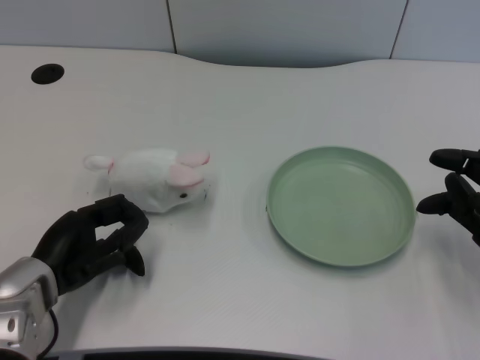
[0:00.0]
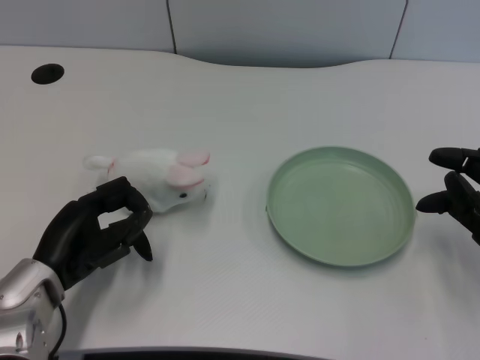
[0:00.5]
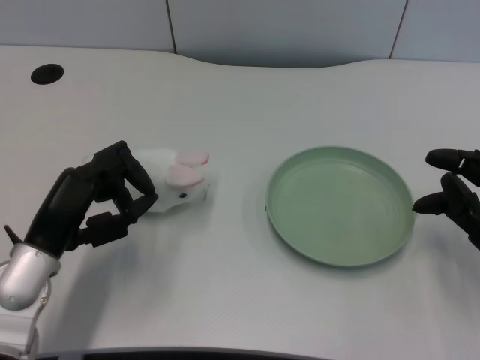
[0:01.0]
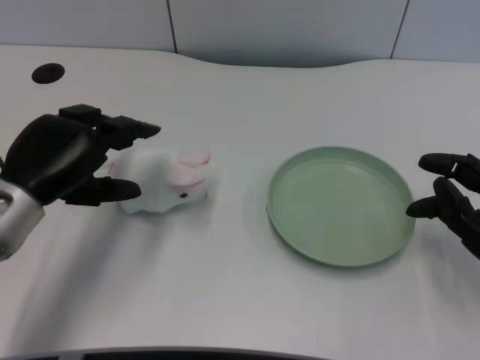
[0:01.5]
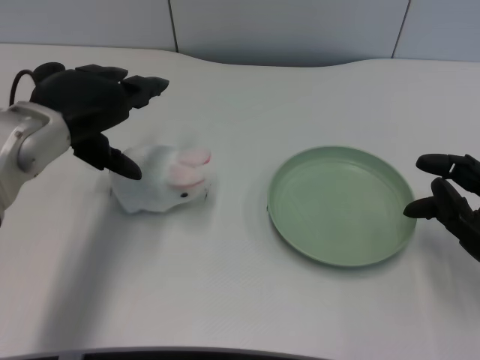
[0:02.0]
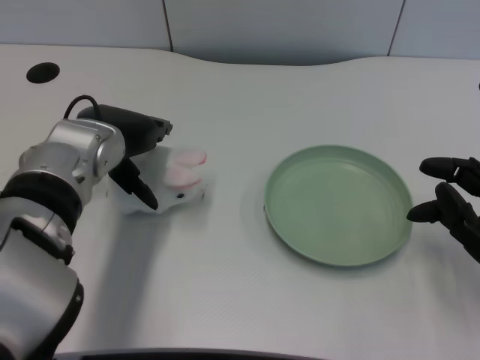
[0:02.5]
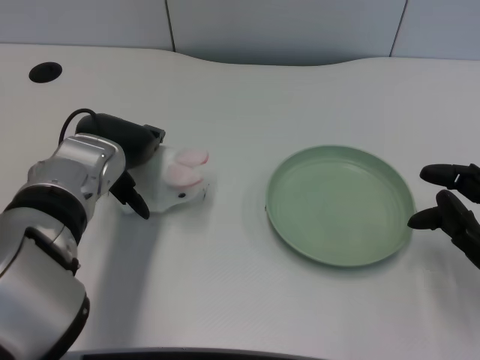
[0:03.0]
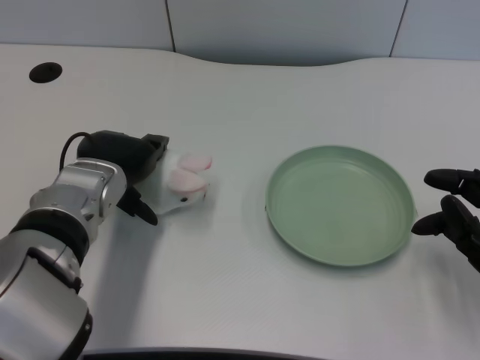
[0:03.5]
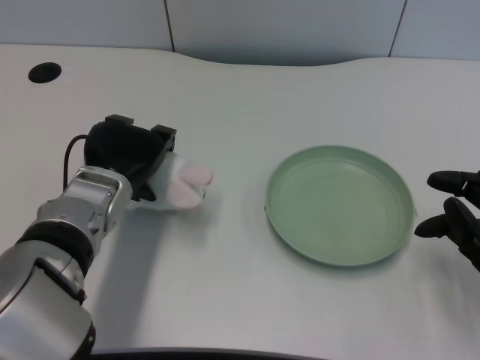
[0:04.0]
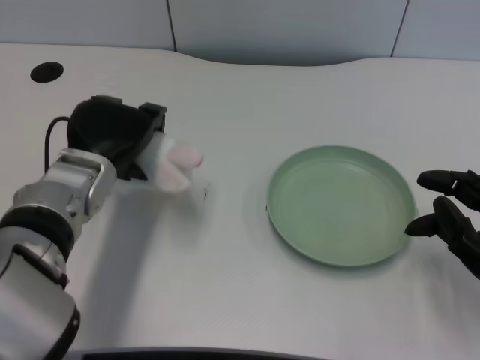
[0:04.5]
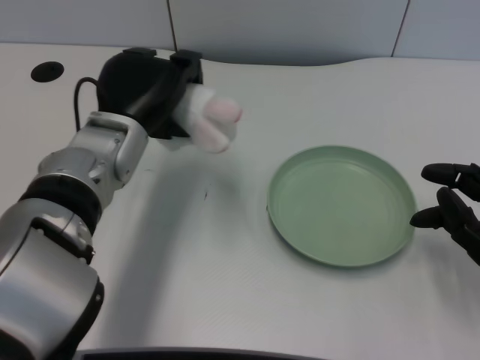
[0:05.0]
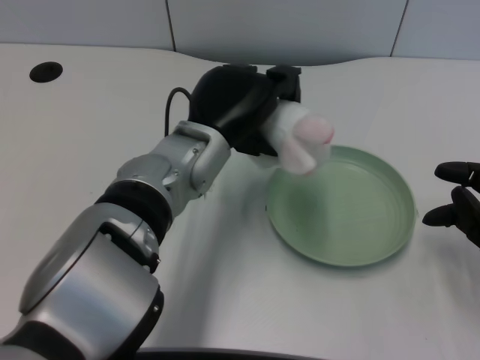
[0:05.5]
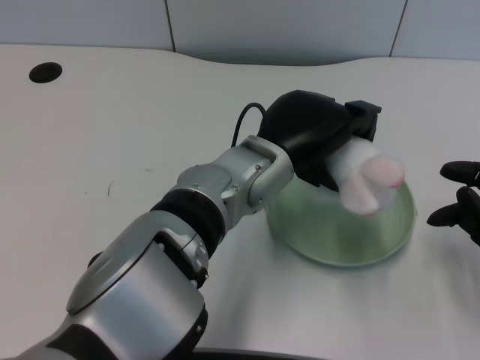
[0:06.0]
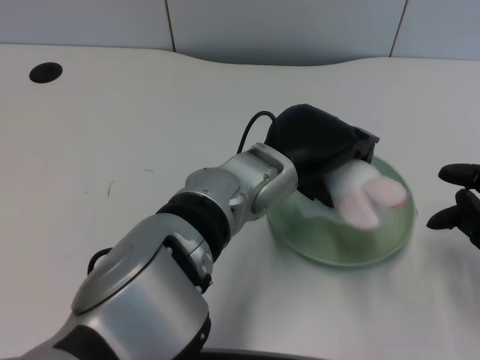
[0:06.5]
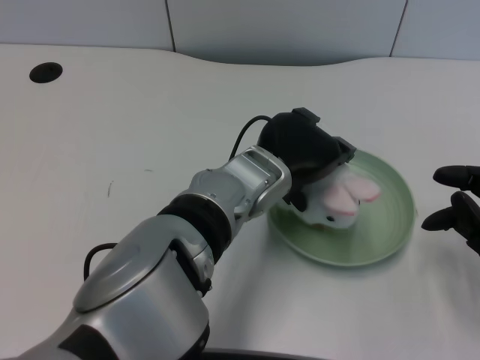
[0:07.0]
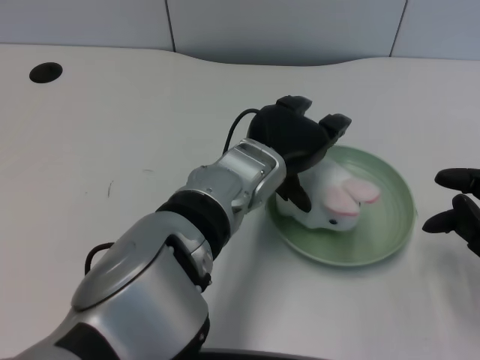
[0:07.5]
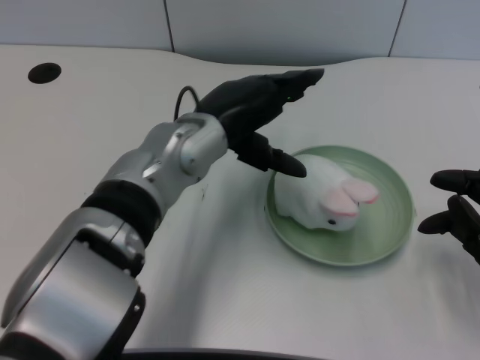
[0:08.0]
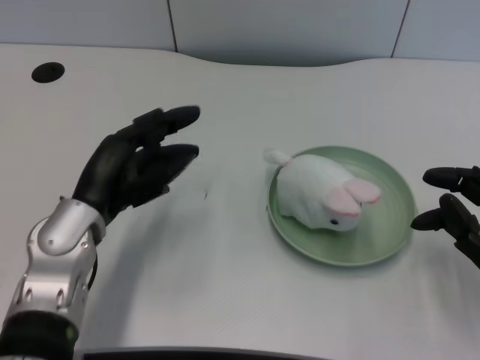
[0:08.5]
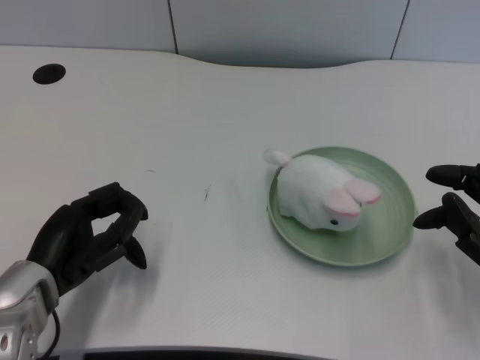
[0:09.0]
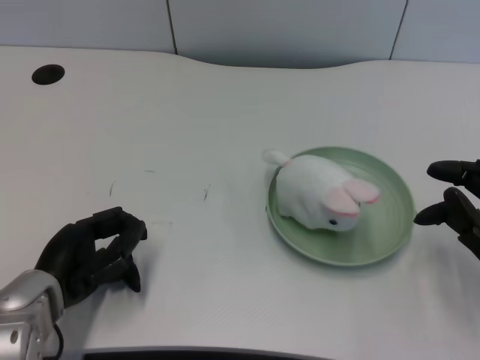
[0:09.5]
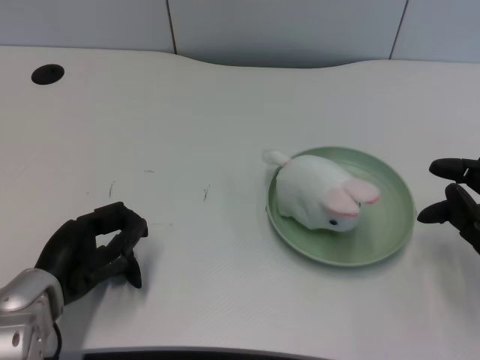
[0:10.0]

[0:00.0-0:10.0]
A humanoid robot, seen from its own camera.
Task of the whole recording: pick up the rabbit doll from the table and place it on the plate.
Step, 0:01.0 to 0:04.0: Grasp the rabbit doll with the left gripper.
Step, 0:05.0 to 0:07.0: Place the rabbit doll into the plate with the left gripper.
0:02.0 to 0:04.0: The left hand travels downward by roughly 10 cm.
0:04.0 to 0:06.0: The left hand goes about 15 cm to the right.
0:06.0 to 0:08.0: The left hand goes about 5 cm to the left.
0:08.0 to 0:10.0: The left hand heads to the left, downward and backward, covering approximately 20 cm.

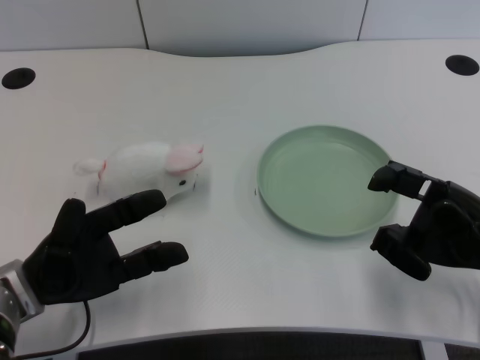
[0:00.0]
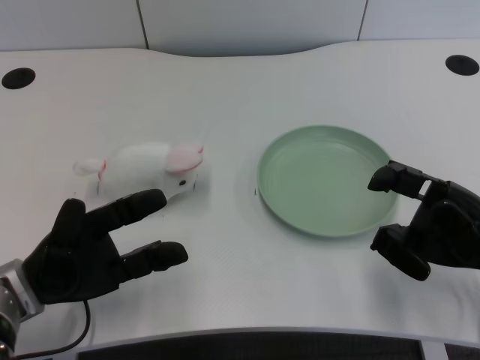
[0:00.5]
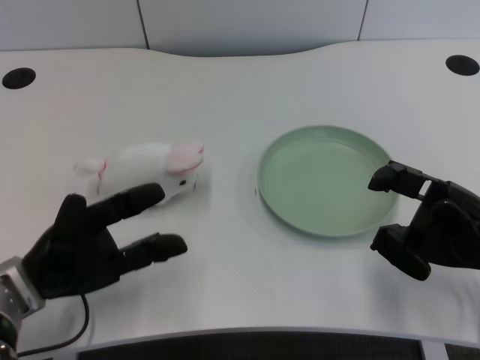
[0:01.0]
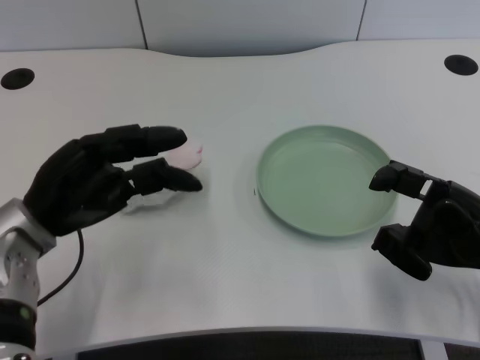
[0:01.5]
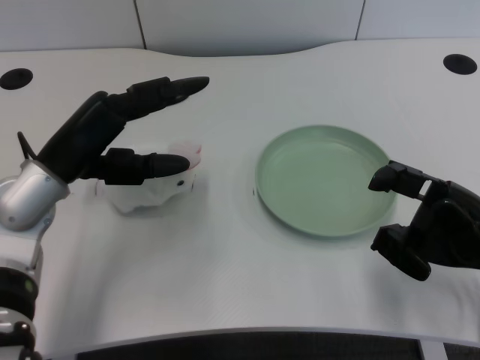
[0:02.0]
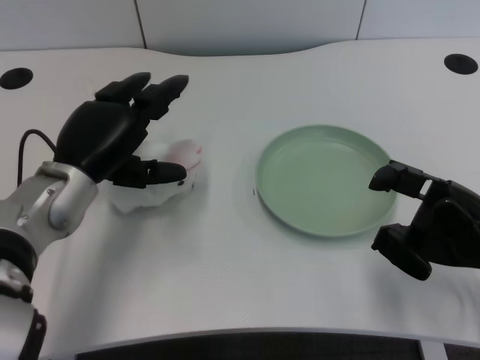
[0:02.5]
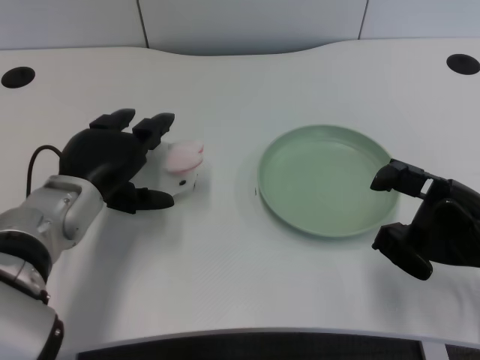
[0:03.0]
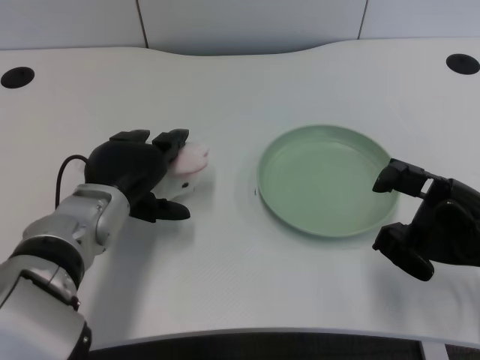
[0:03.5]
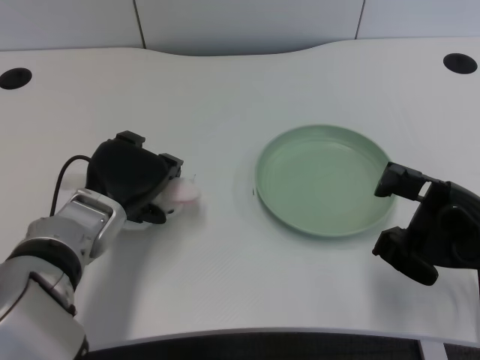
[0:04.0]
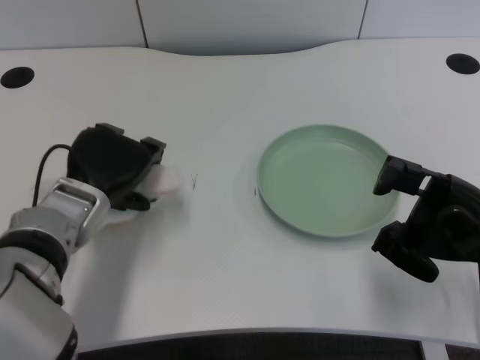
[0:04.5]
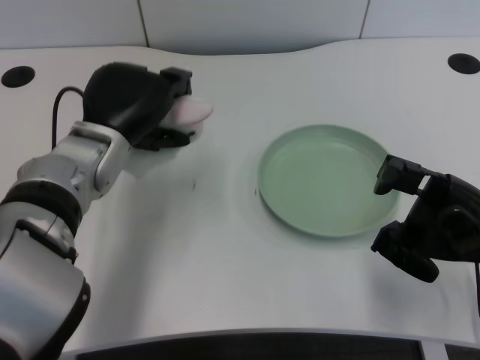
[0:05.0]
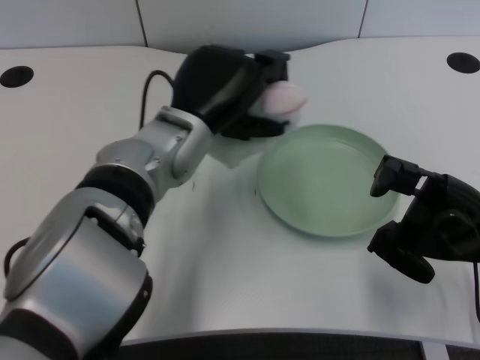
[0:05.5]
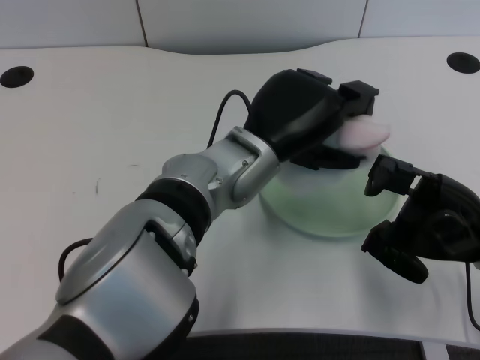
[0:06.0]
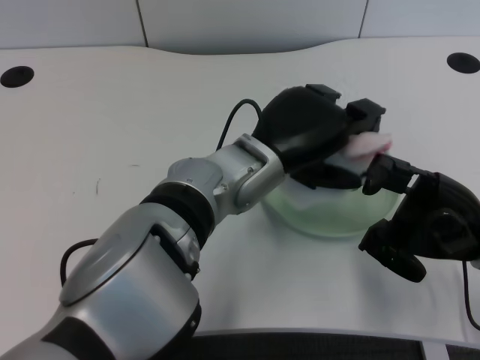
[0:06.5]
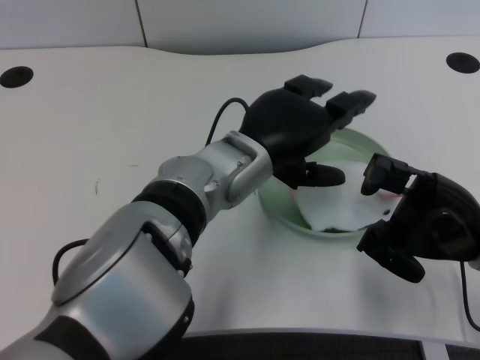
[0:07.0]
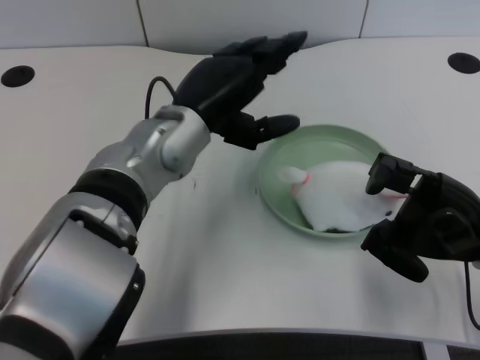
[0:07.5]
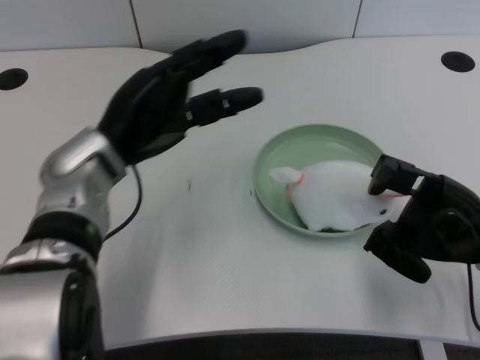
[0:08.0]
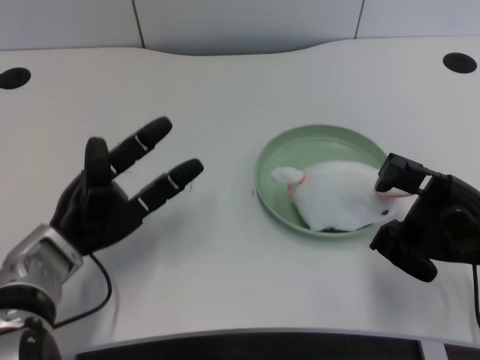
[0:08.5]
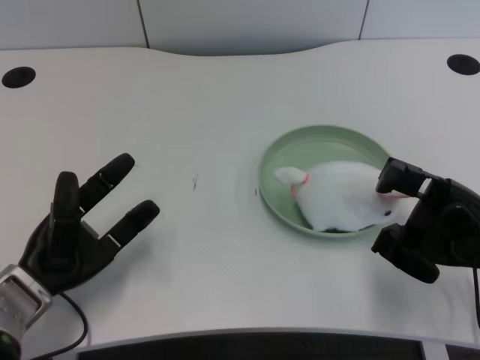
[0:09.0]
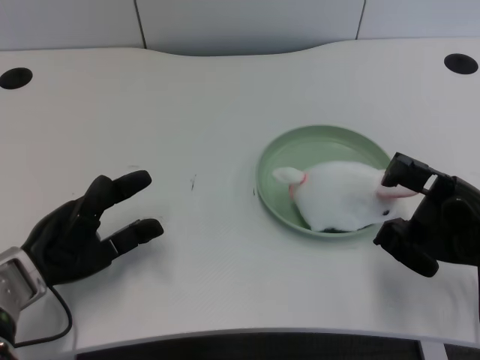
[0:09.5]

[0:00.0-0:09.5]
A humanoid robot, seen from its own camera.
Task of the whole recording: pick up the rabbit doll from the table and place it on the plate.
Step, 0:01.5 to 0:04.5: Grasp the rabbit doll with the left gripper.
Step, 0:05.0 to 0:06.5: Place the rabbit doll into the plate with the left gripper.
0:02.0 to 0:04.0: The left hand travels downward by some 5 cm.
0:04.0 to 0:05.5: The left hand goes approximately 10 cm to the right and upward.
0:07.5 to 0:09.5: The left hand moves to the left and downward, approximately 20 cm.
